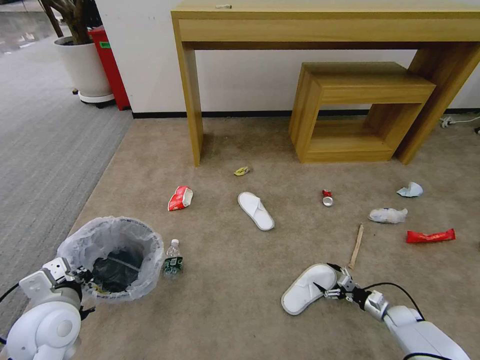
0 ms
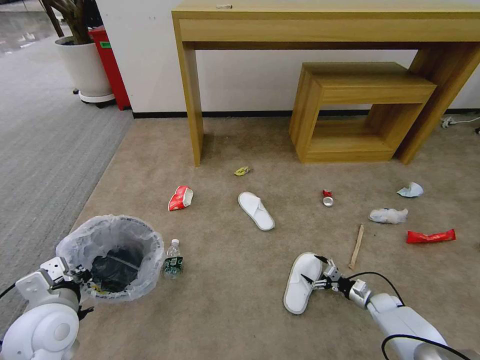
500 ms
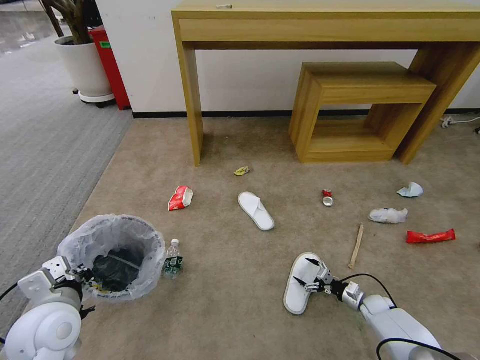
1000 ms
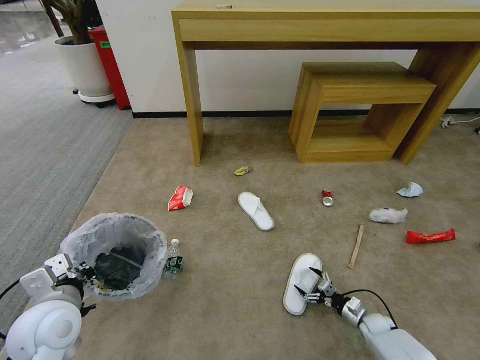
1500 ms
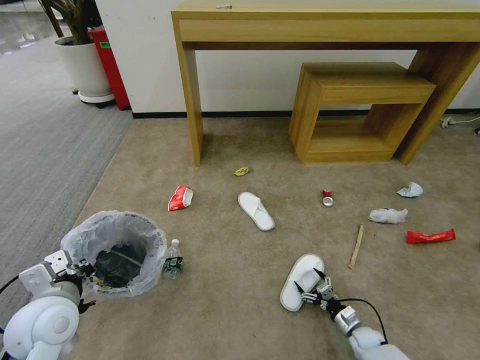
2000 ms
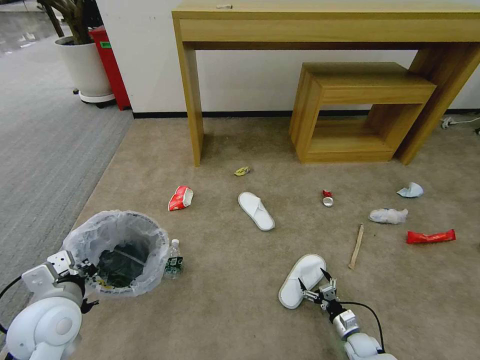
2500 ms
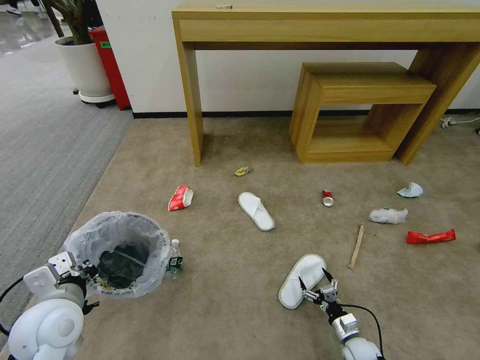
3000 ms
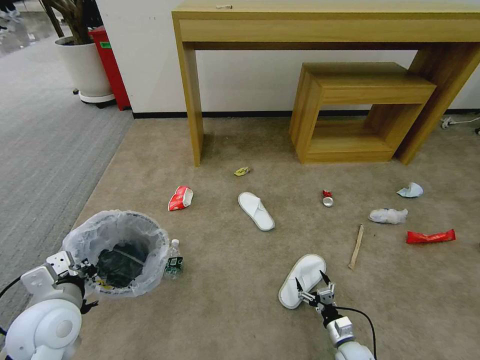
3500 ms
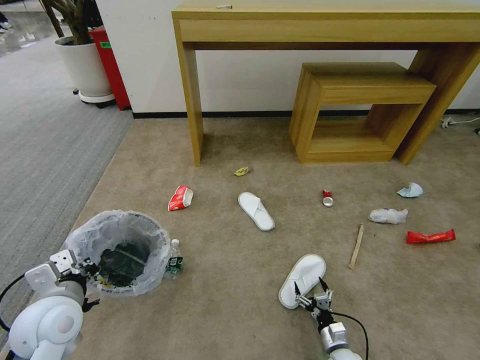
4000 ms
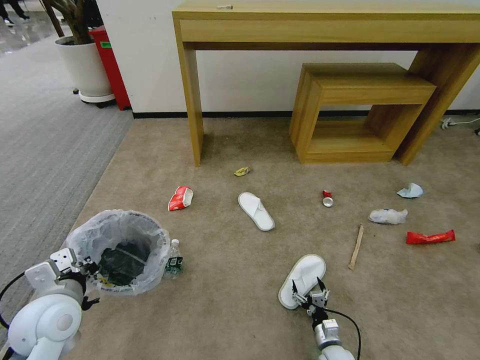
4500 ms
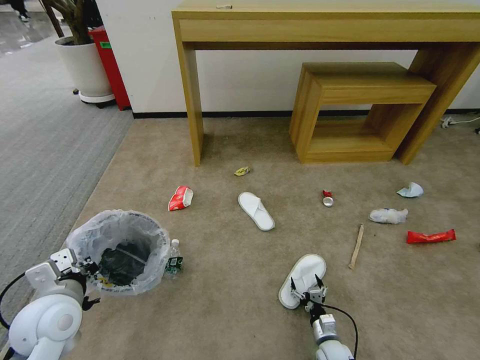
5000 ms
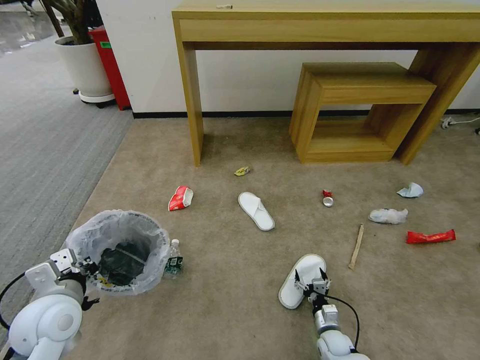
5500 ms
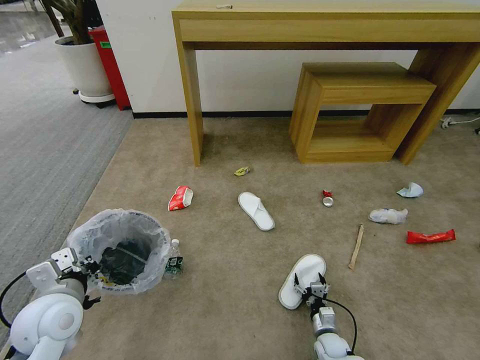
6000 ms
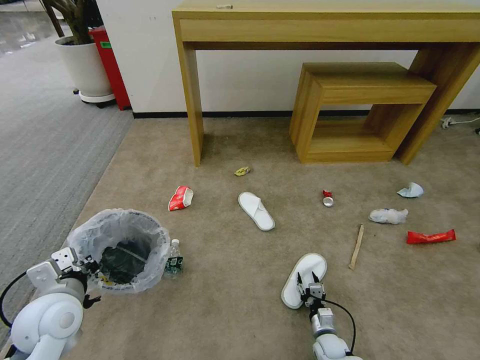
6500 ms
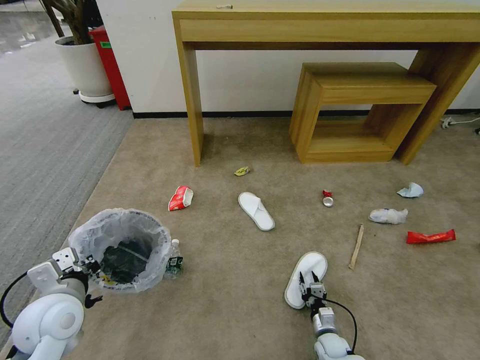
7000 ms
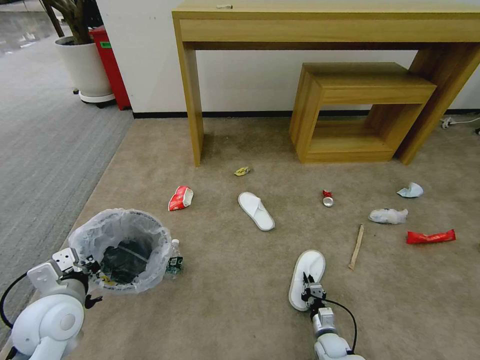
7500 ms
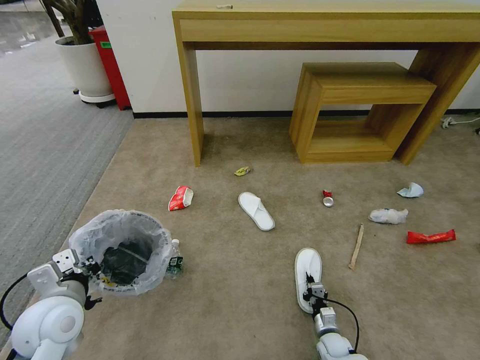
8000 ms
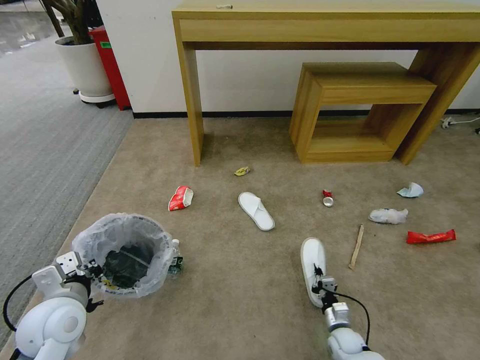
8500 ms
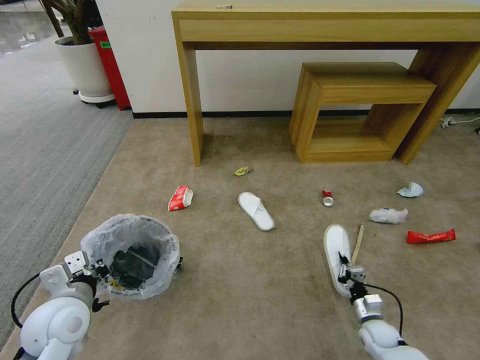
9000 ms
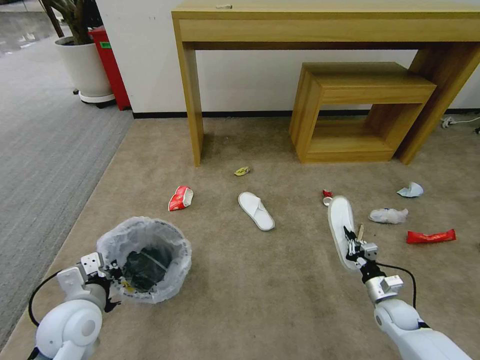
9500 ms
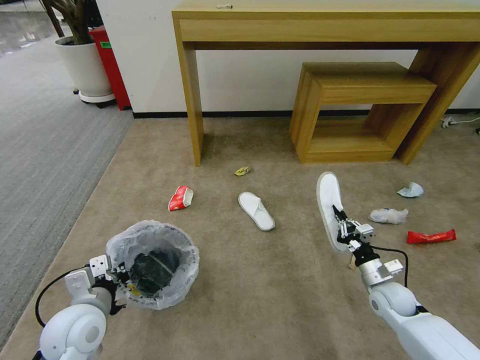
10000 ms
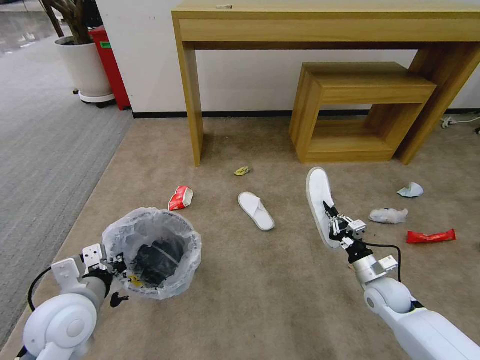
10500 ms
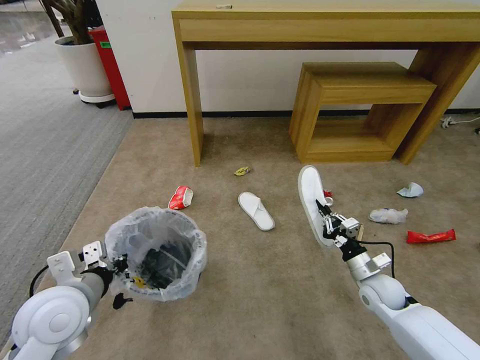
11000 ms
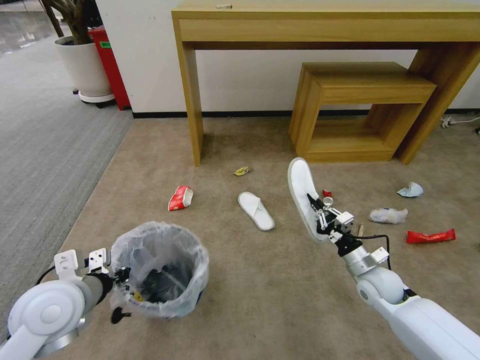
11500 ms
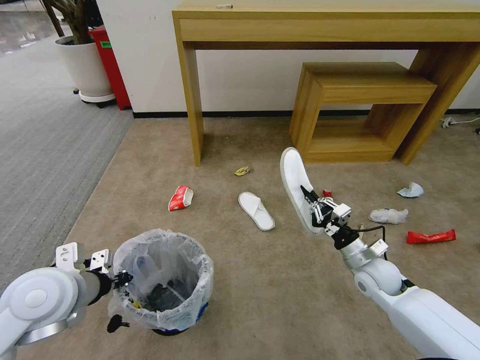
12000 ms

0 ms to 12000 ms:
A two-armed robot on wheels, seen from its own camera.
Task of the whole recording: Pick up the trash bin and place the garbage on the floor into it.
0 ms to 2000 ms: The right gripper travels to the left, downward and backward by about 15 cm.
2000 ms to 4000 ms: The right gripper moves to the left and backward, roughly 10 cm.
4000 ms to 6000 ms: The right gripper changes place by roughly 5 cm.
6000 ms to 8000 ms: The right gripper closes its fingers.
8000 ms to 10000 ms: The right gripper goes roughly 25 cm upward and to the right.
10000 ms to 12000 ms: The right gripper goes about 10 cm upward and to the left, while the left gripper travels upward by about 10 cm.

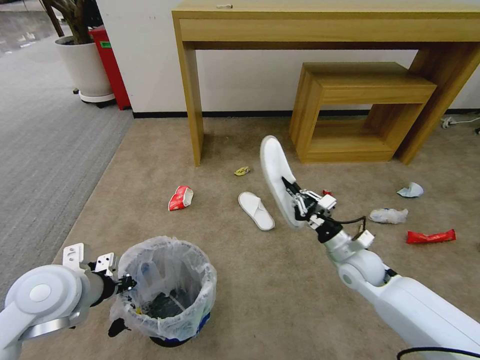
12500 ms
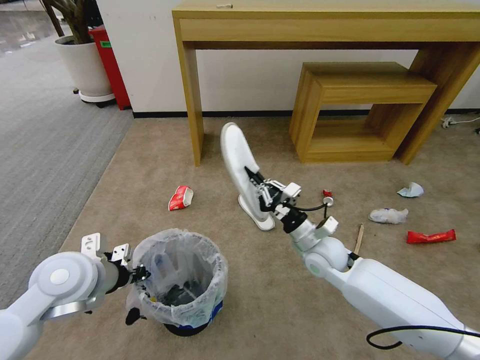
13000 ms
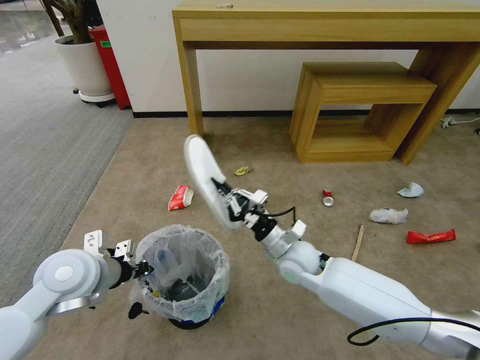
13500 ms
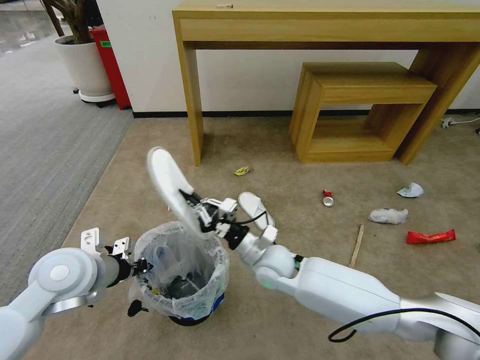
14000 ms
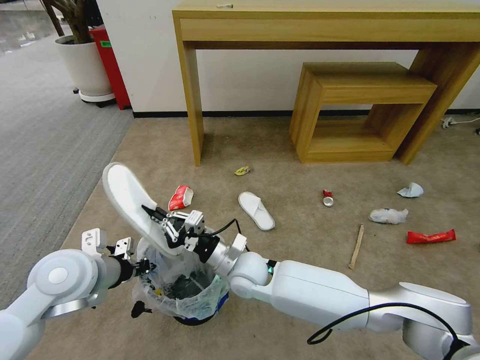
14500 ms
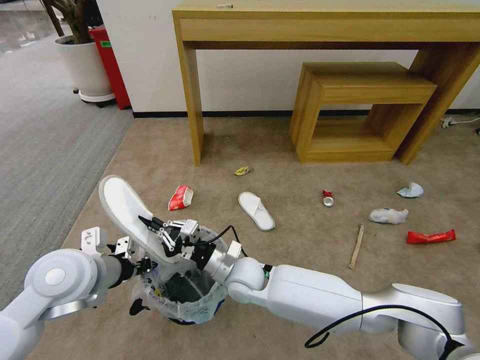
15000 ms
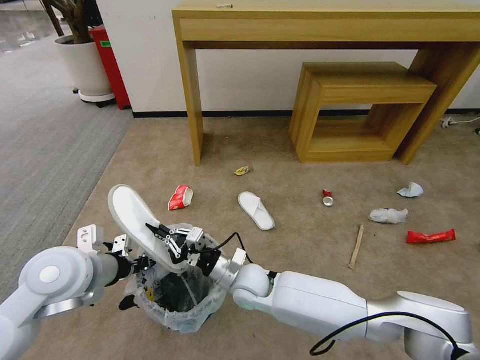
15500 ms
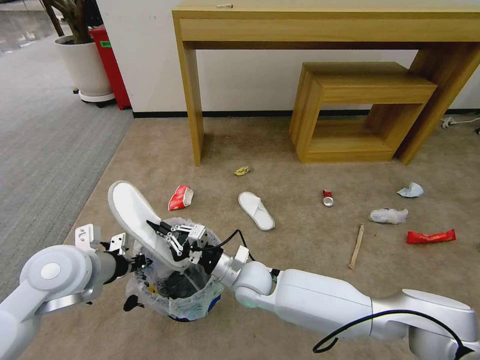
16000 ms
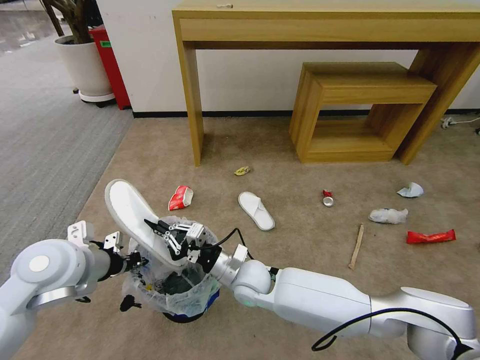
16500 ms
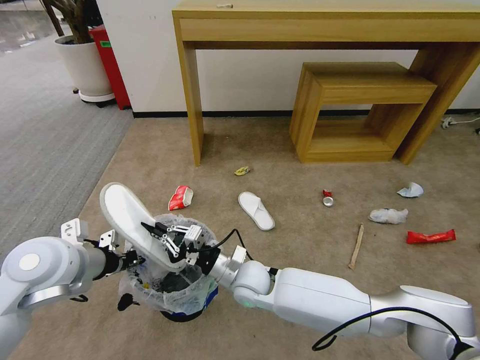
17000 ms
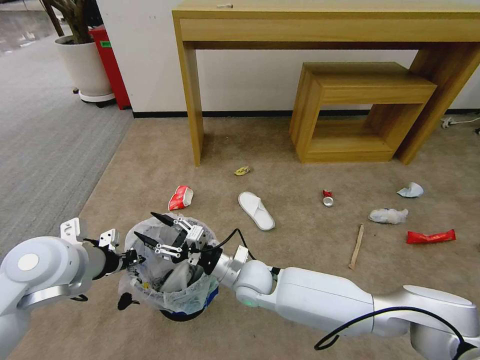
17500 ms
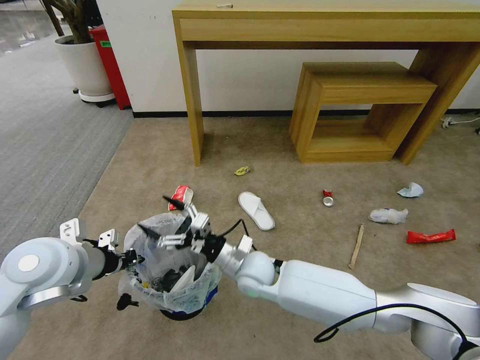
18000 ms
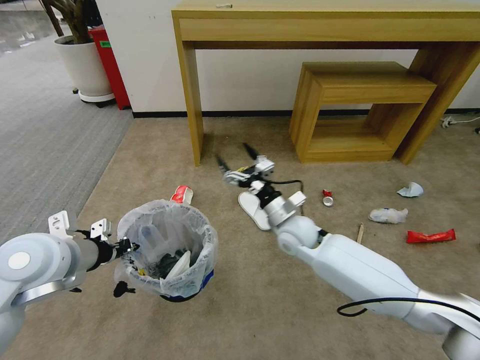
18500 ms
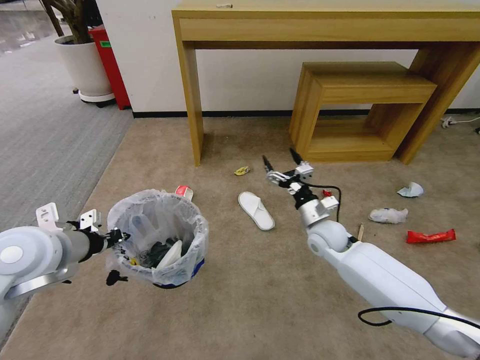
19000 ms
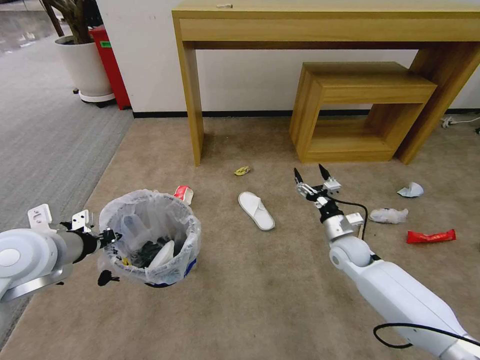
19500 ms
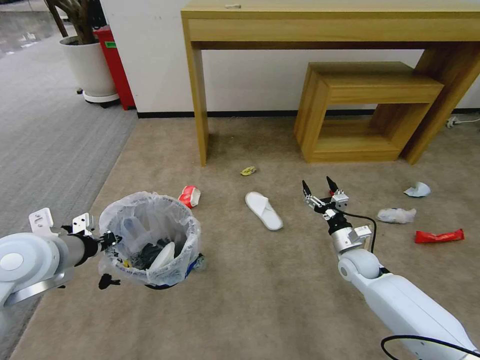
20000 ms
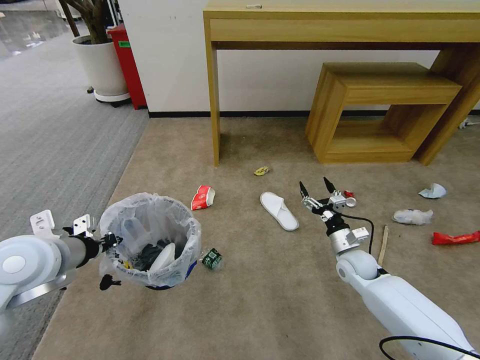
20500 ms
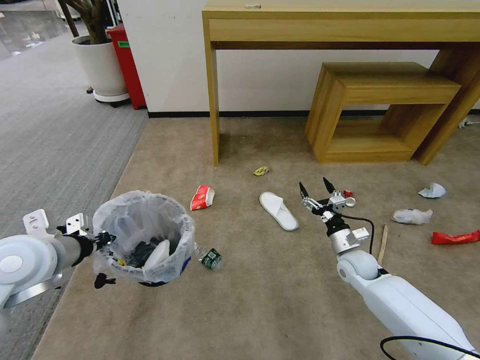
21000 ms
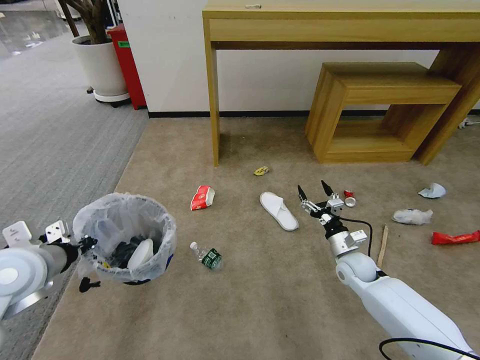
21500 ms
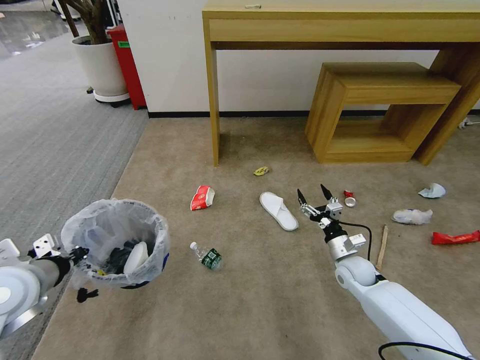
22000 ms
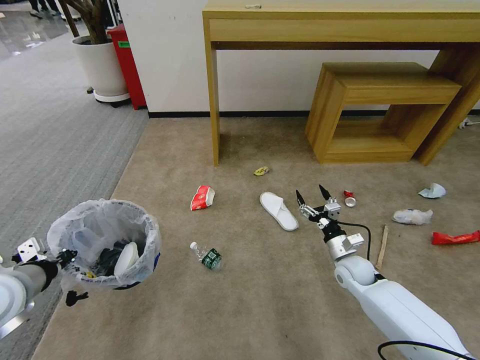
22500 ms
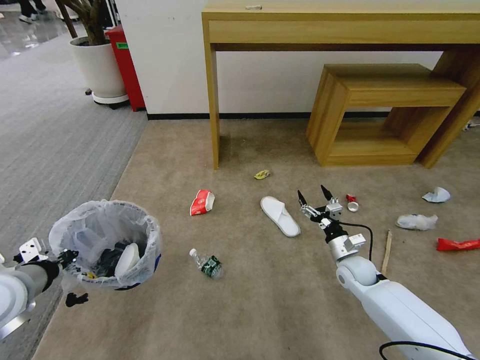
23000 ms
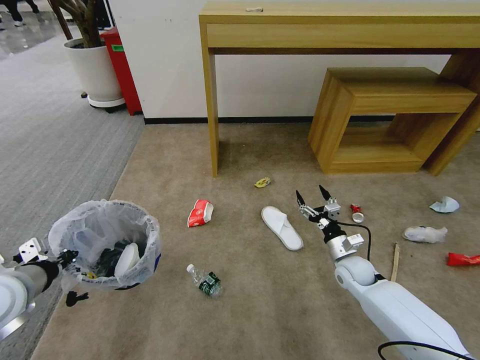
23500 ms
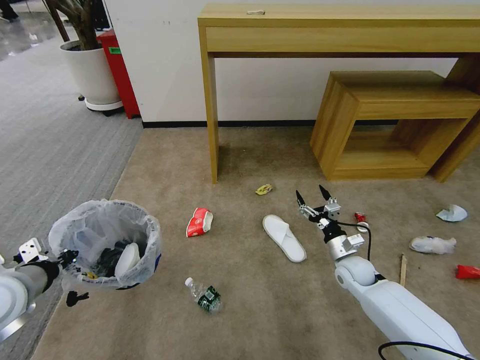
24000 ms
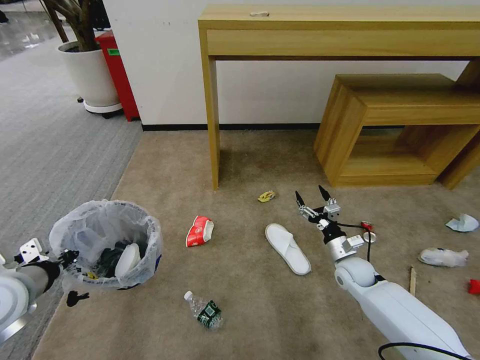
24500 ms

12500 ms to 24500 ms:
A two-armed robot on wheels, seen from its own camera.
Task of the whole recording: Pick up the trash bin and place the garbage on the floor into it.
12500 ms to 14500 ms: The right gripper travels to the left by roughly 25 cm.
14500 ms to 16500 ms: There are only small adjustments of the grippers.
16500 ms to 18500 ms: The right gripper goes some 15 cm to the right, forward and upward, and opens.
18500 ms to 20500 ms: The right gripper shifts roughly 20 cm to the right and downward.
20500 ms to 22500 ms: The left gripper goes about 5 cm to the left.

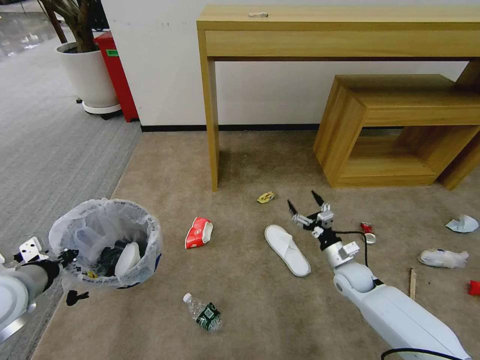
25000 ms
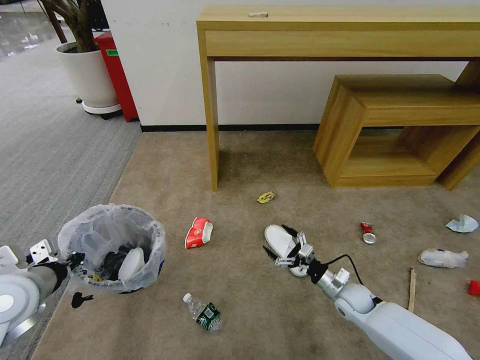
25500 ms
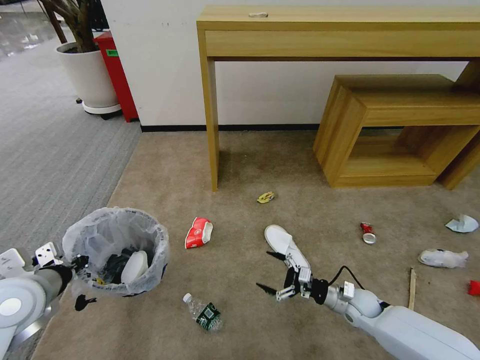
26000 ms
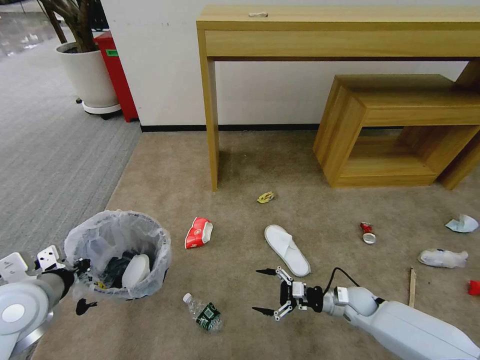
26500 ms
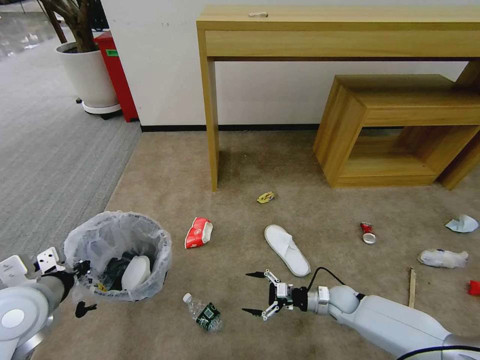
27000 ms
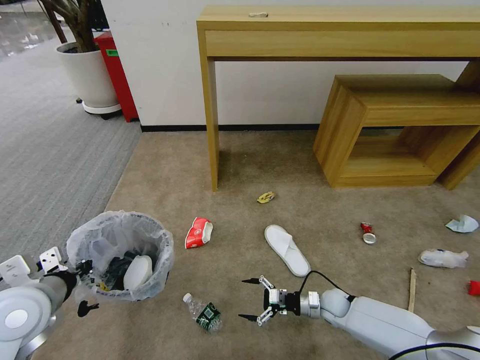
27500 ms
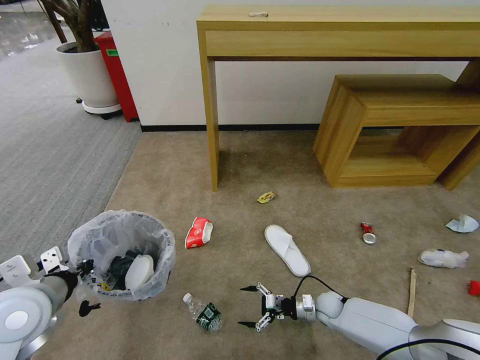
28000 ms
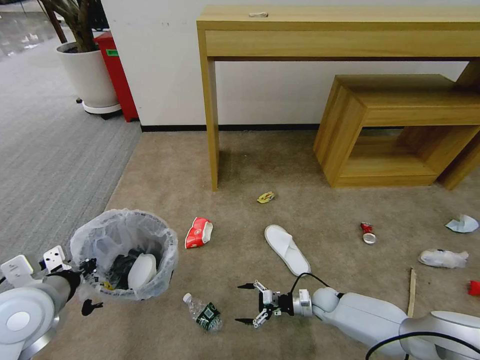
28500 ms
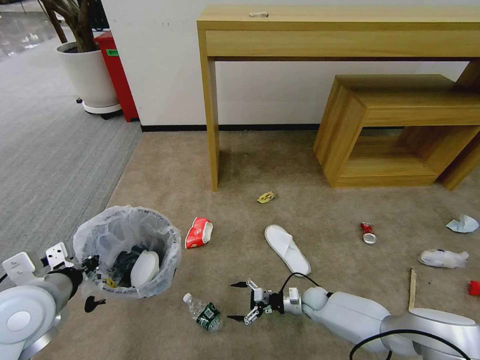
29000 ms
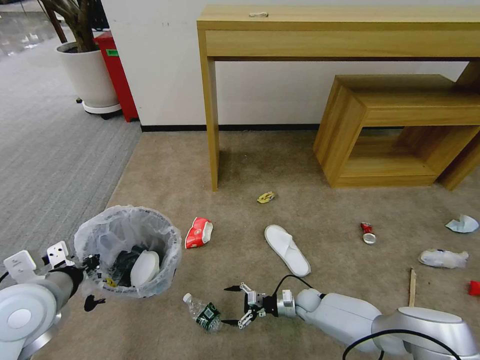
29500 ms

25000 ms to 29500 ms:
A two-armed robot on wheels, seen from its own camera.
Task of the whole recording: Pick up the trash bin and place the garbage on the floor into it.
25000 ms to 27000 ms: The right gripper moves downward, some 5 cm.
27000 ms to 29500 ms: The right gripper is displaced downward and to the left by some 10 cm.
